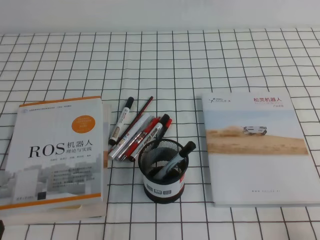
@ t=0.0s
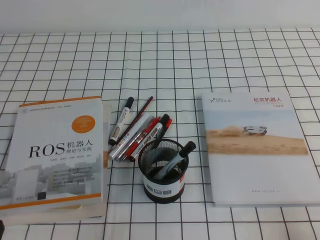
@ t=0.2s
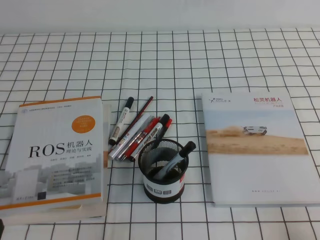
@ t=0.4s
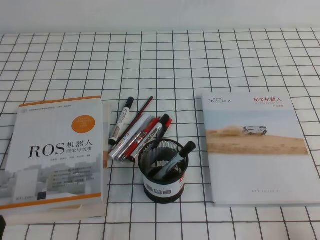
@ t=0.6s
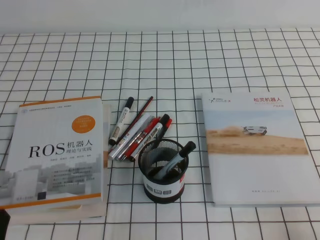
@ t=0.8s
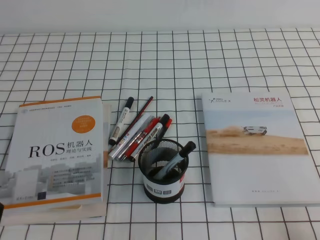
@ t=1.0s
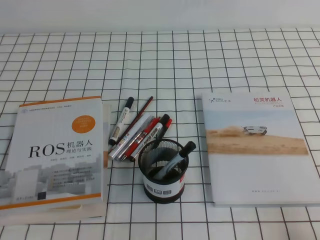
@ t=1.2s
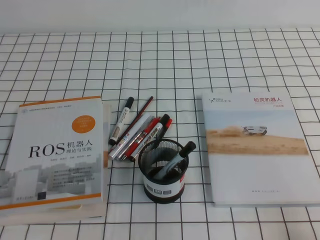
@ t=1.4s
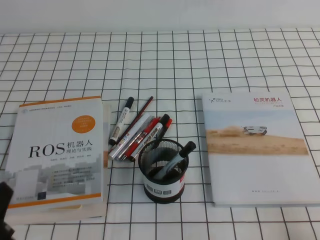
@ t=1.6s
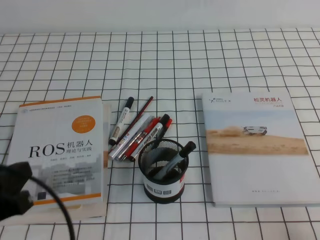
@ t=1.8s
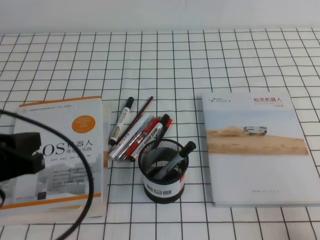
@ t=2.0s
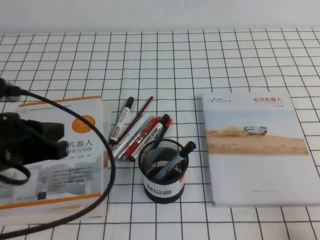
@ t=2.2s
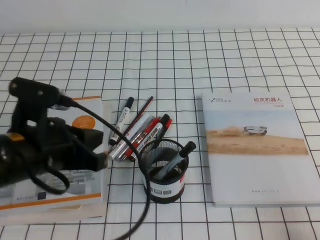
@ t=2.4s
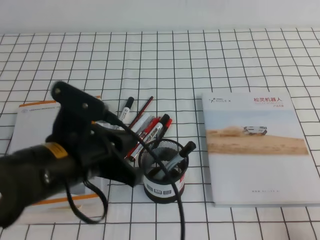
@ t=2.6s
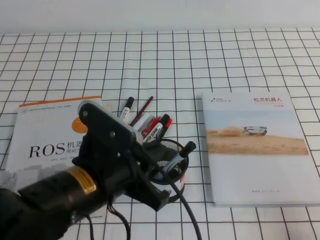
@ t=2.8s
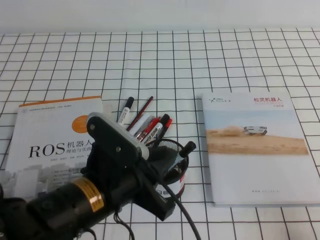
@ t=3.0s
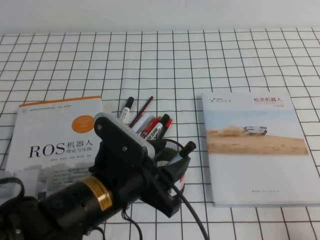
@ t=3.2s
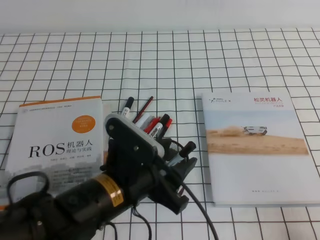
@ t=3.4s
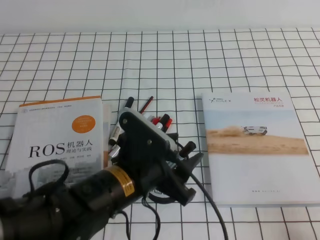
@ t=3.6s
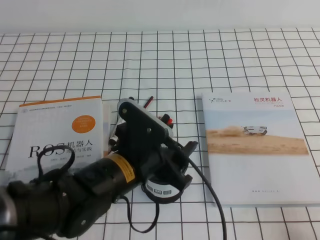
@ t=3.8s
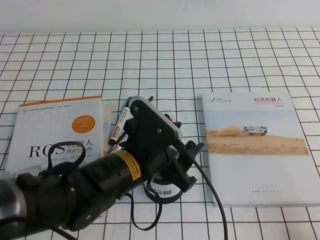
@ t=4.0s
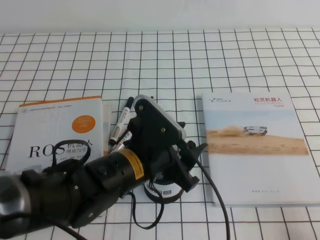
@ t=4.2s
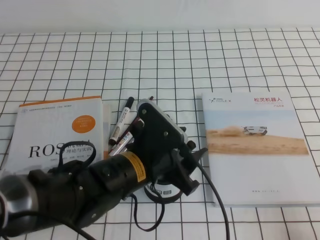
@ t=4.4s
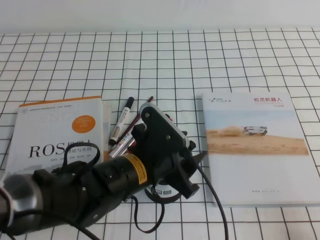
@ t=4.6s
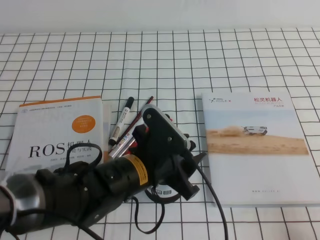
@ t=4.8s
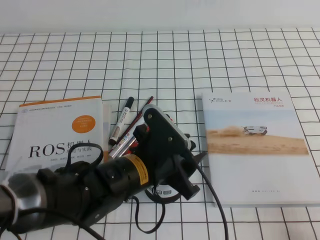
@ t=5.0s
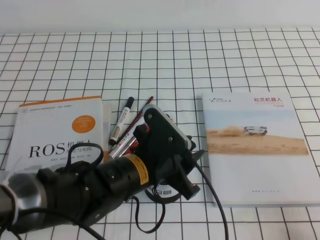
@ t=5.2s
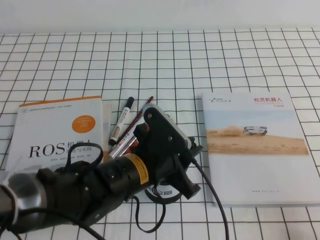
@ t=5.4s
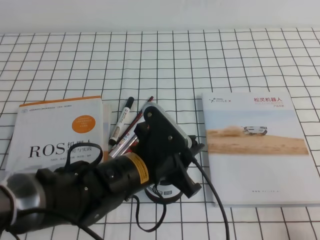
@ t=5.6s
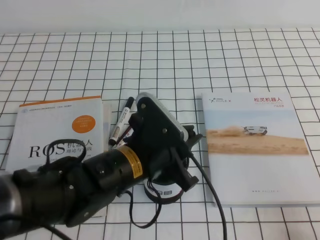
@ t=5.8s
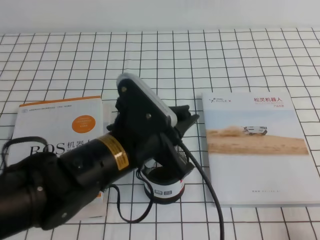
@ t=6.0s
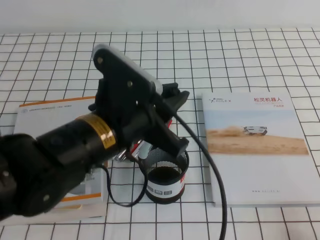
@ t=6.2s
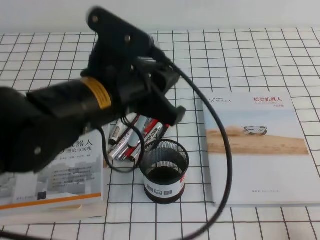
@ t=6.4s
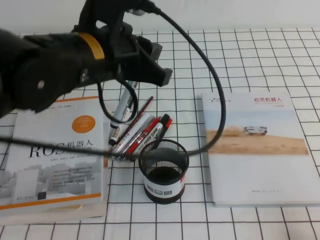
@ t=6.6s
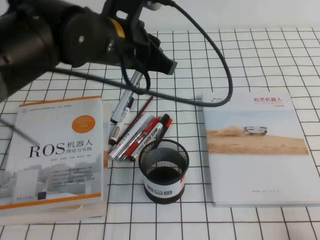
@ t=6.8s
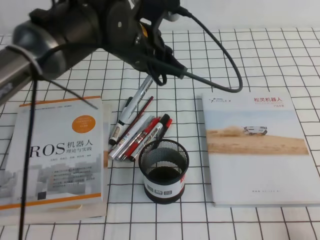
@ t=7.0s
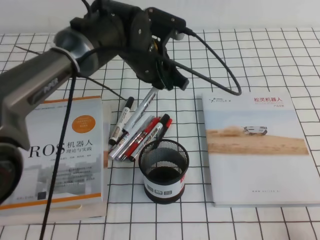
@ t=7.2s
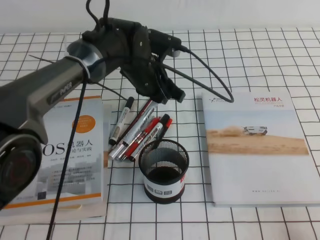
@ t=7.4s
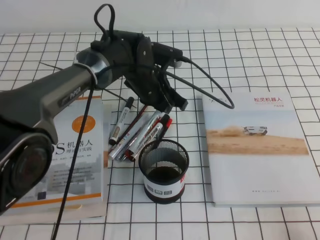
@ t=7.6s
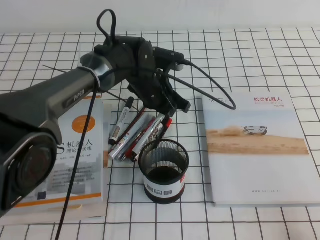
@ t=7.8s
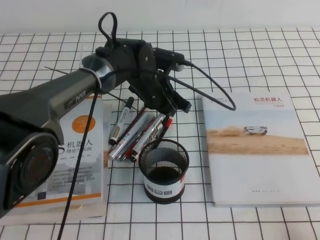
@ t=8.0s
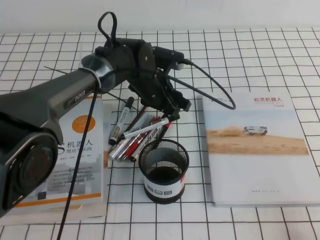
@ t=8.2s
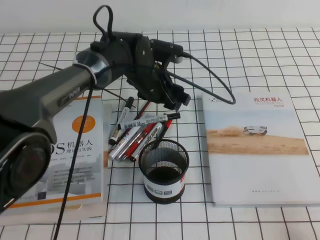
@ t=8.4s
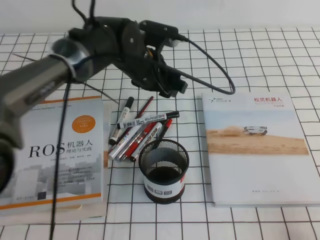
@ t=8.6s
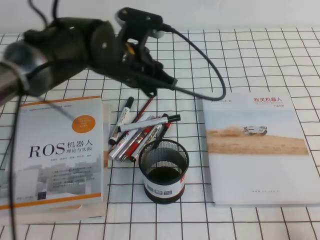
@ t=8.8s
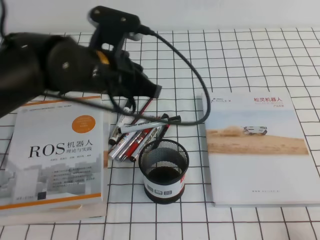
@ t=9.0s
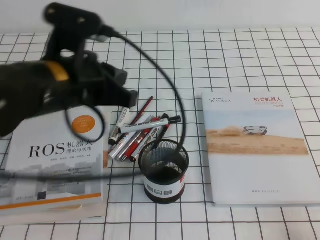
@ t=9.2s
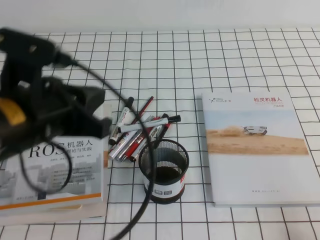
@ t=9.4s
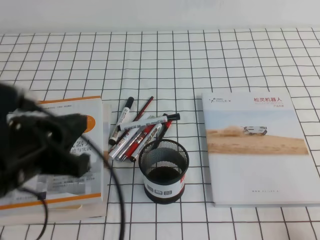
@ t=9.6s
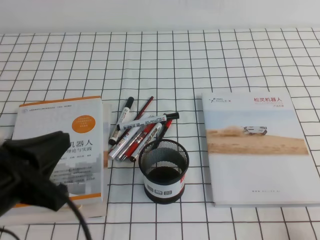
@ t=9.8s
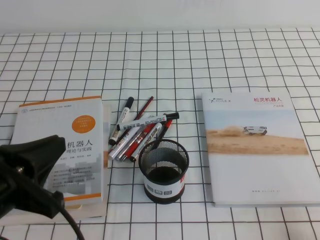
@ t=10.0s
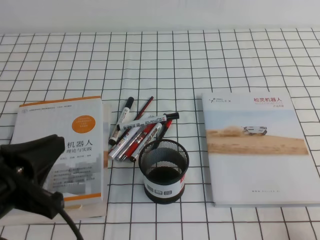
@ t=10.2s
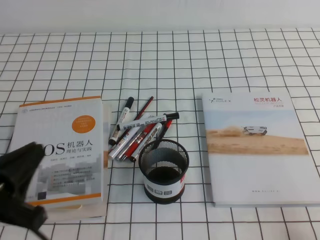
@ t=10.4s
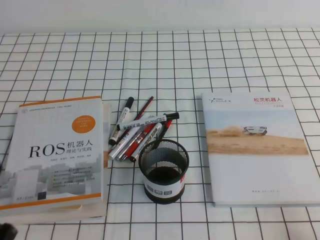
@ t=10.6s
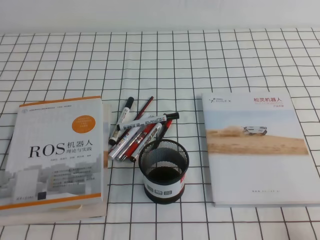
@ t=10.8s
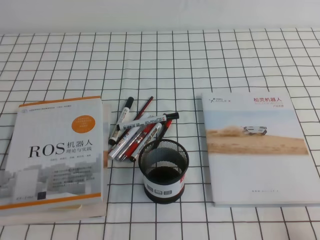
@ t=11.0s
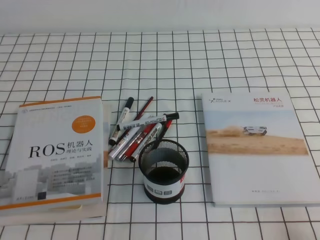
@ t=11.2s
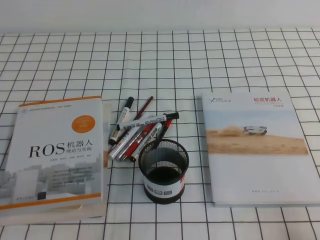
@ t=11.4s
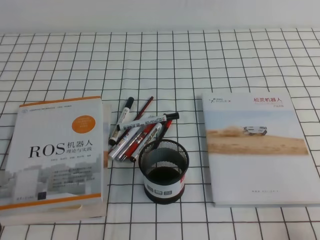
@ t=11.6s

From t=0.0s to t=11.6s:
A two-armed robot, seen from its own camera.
Step, from t=0.0s to t=11.6s: Pick up the pen from the pen holder.
From t=1.4s to t=2.8s: The left gripper goes roughly 20 cm to the right and forward.
From t=2.8s to t=4.4s: The left gripper is displaced to the right and downward by some 10 cm, and opens its fingers.
From t=4.4s to t=5.8s: The left gripper closes.
From t=5.8s to t=7.2s: The left gripper travels forward by about 15 cm.
From t=7.2s to t=8.8s: The left gripper reaches some 10 cm downward, then returns, and opens and closes again.
From t=8.8s to t=10.2s: The left gripper goes approximately 30 cm backward and to the left, and closes its fingers.
From t=10.2s to t=11.6s: The left gripper goes about 15 cm downward, to the left and backward.
